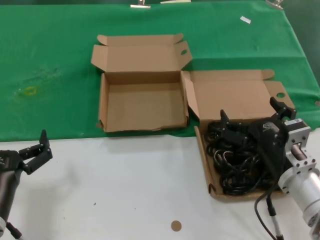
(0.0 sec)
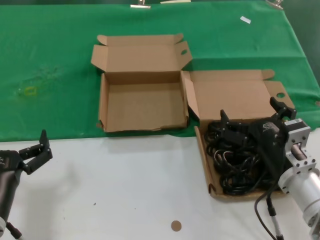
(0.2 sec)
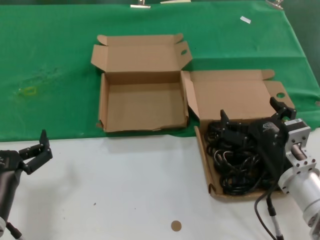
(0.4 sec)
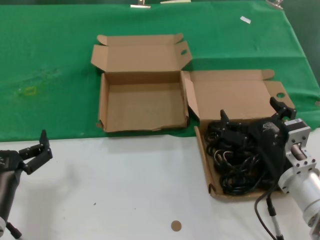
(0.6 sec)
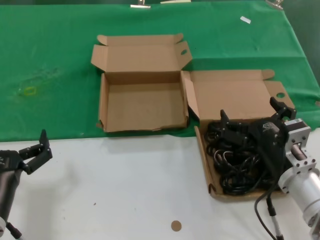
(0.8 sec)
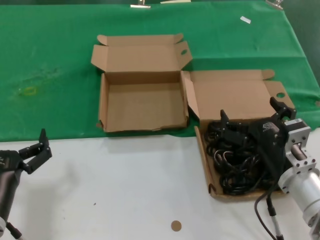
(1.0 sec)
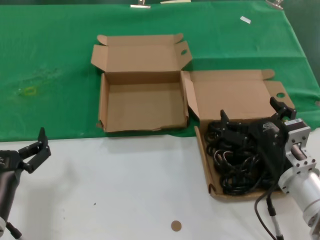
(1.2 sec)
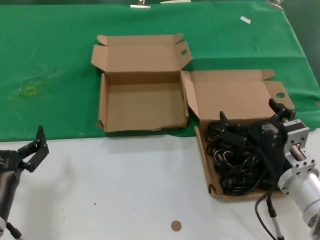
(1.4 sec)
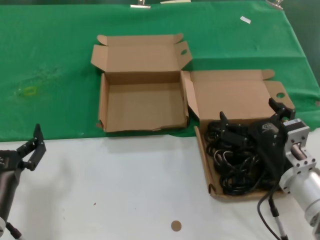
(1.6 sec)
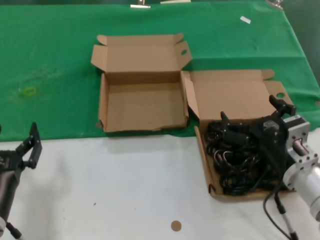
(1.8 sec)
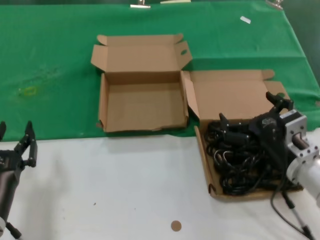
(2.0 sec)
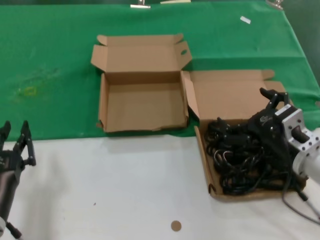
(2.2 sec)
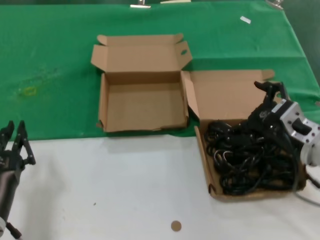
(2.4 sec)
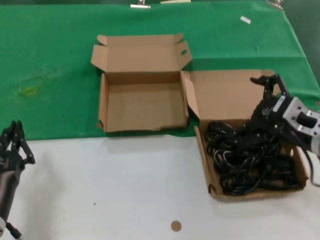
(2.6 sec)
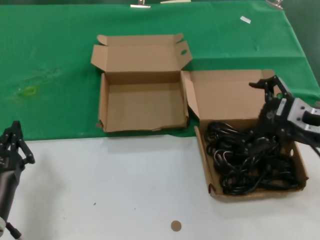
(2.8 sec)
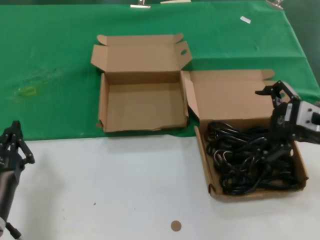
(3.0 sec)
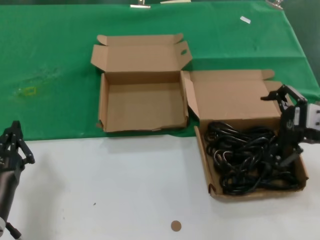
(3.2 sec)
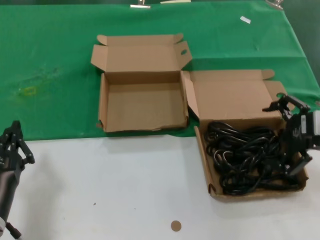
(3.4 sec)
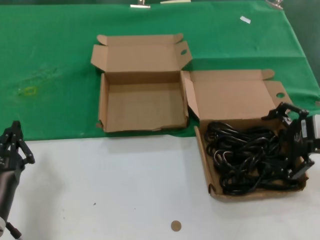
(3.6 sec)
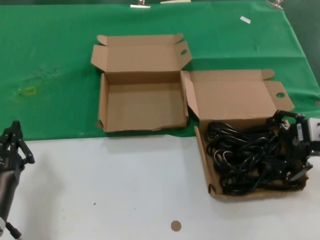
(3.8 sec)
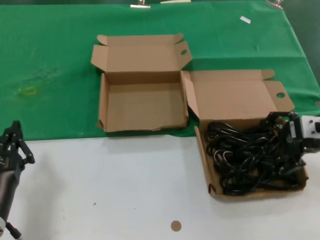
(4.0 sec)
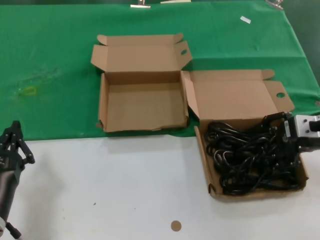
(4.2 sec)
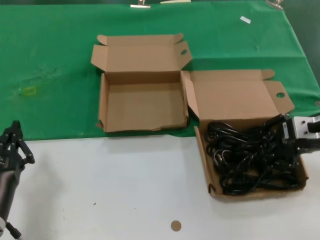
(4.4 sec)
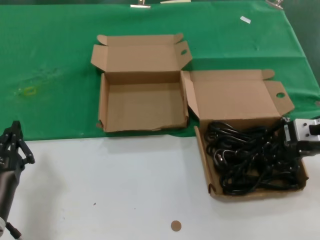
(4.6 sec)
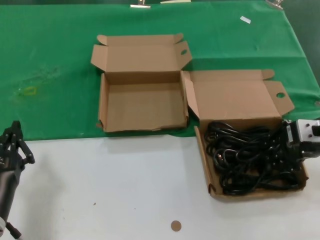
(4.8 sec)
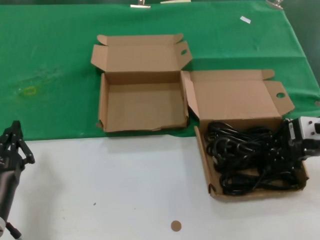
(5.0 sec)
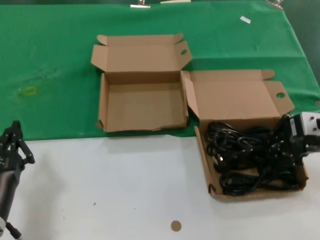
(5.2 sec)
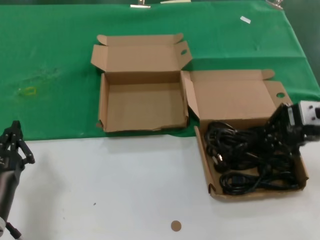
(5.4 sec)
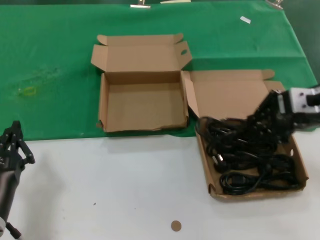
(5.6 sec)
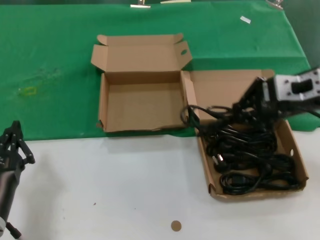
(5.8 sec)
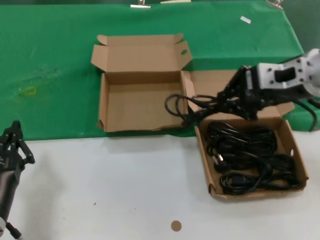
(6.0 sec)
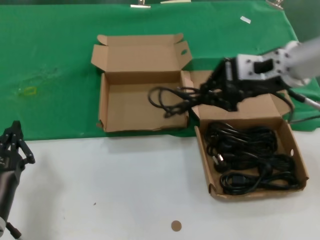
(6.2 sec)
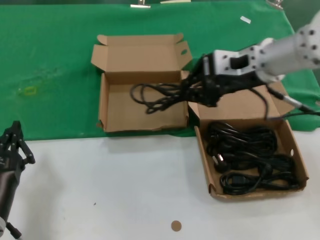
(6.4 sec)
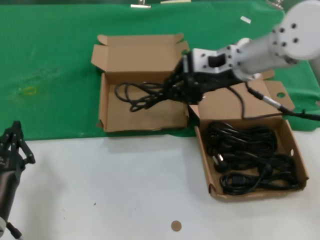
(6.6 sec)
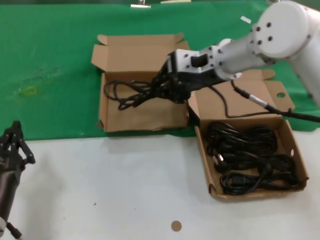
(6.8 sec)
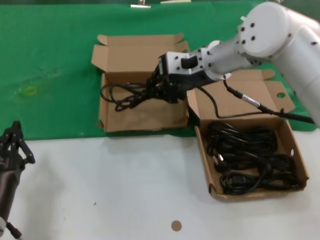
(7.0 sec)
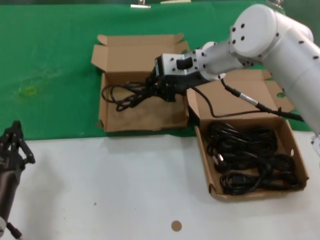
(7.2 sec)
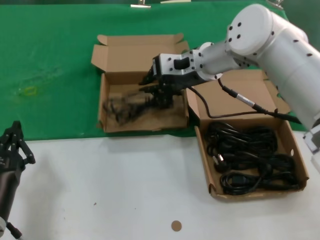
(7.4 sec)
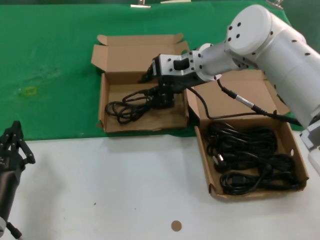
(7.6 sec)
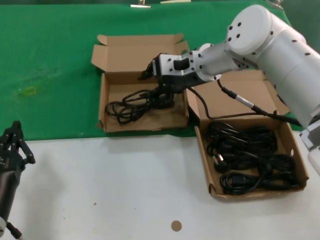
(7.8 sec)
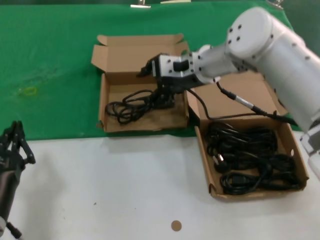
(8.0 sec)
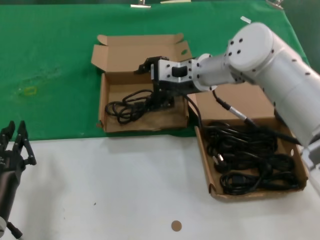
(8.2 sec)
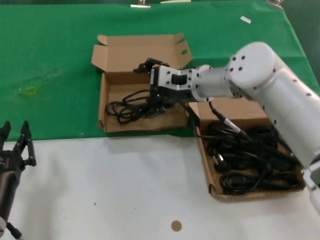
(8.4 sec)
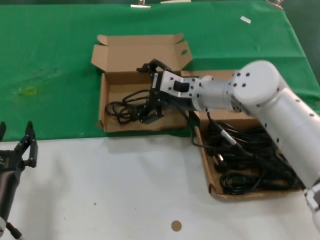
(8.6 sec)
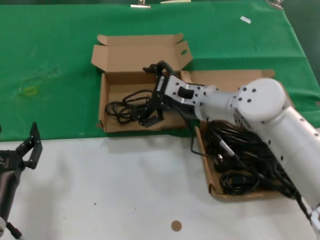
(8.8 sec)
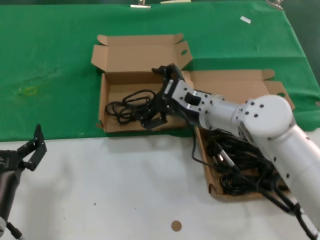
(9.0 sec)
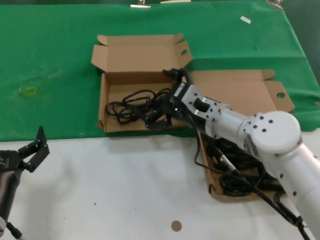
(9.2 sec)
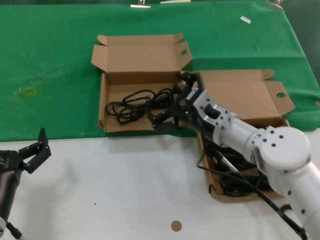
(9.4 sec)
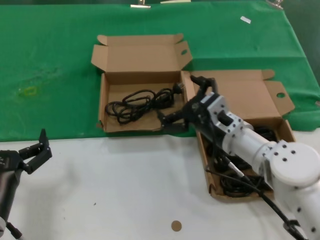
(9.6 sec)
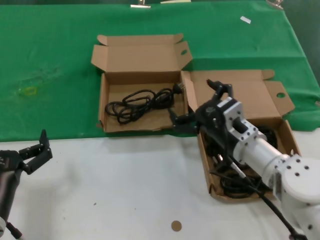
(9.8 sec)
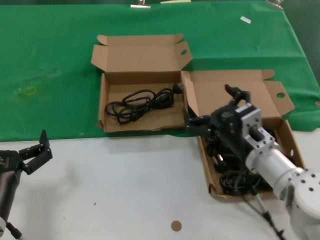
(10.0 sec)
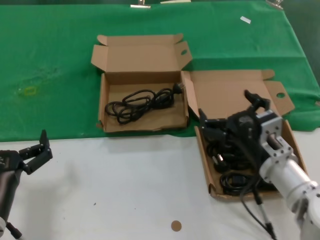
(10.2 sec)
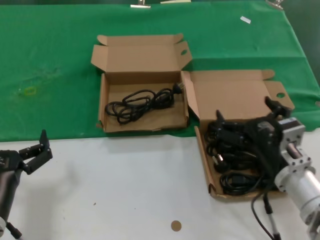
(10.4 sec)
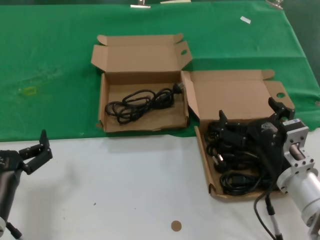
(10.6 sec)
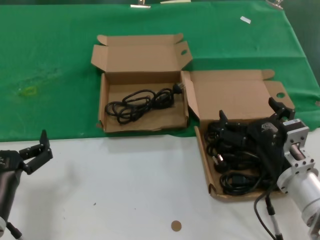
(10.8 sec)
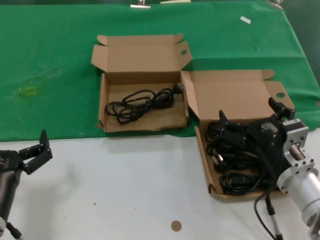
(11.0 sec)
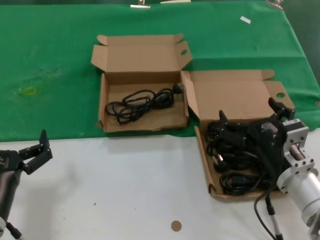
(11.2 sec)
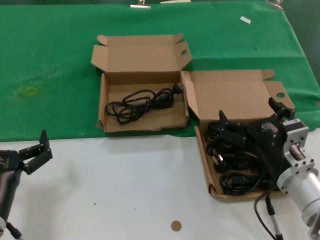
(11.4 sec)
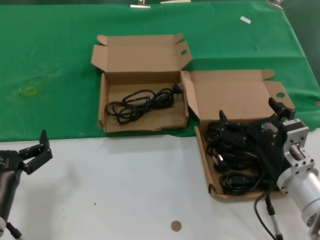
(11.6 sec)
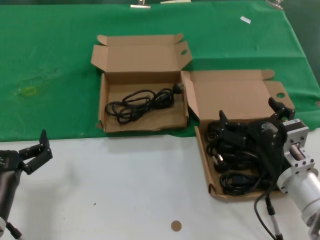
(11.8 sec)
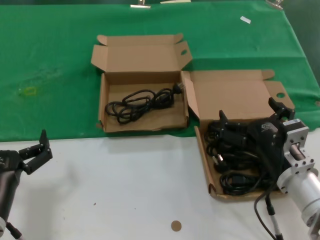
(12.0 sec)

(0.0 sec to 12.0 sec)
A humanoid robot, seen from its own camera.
Task of the whole recording: take the parts from the box containing them and put them into an empty box.
Step, 0.0 sec - 4.8 sec: Grasp the data cable.
Step, 5.0 sec - 7.4 sec: Place the data cable in the another box.
0.0 sec - 1.6 sec: Both hands stay about where they are.
1.6 sec - 3.0 sec: The right hand goes some 15 cm upward and to the right.
3.0 sec - 4.4 sec: The right hand moves about 5 cm.
4.4 sec - 6.0 sec: The right hand is displaced upward and to the left by some 15 cm.
6.0 sec - 7.6 sec: The right hand is displaced forward and to the left by some 20 cm.
7.6 sec - 9.0 sec: The right hand moves downward and backward, approximately 15 cm.
9.0 sec - 10.4 sec: The right hand goes roughly 20 cm backward, to the right and downward.
10.4 sec - 12.0 sec: Both hands stay put.

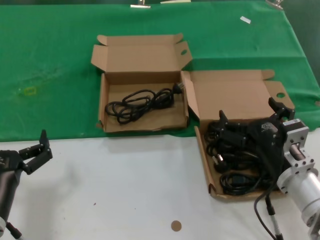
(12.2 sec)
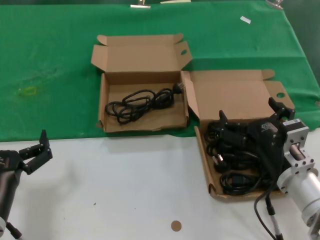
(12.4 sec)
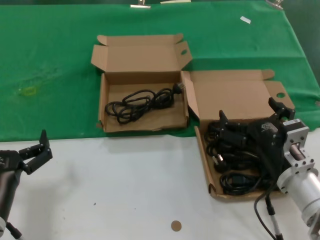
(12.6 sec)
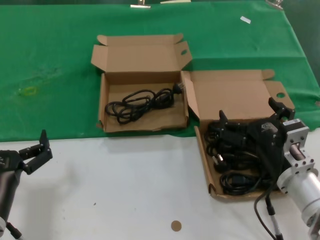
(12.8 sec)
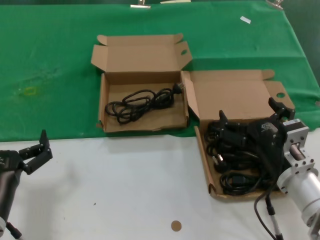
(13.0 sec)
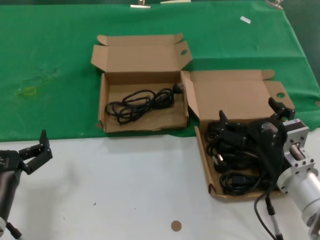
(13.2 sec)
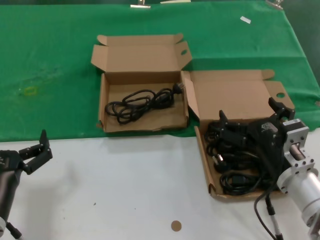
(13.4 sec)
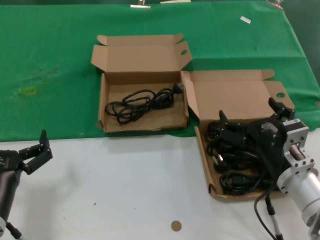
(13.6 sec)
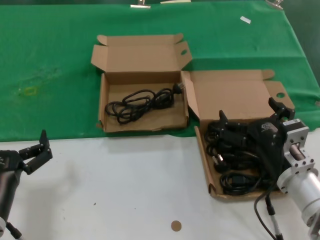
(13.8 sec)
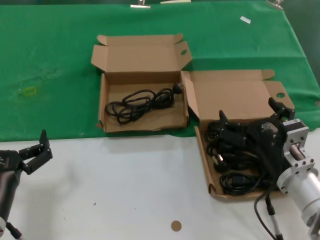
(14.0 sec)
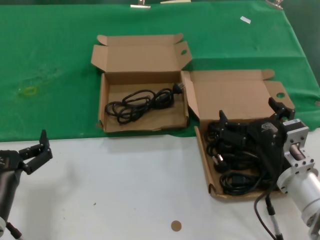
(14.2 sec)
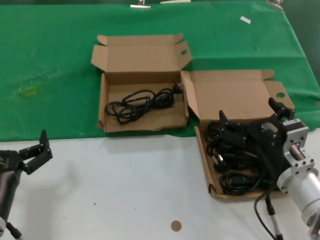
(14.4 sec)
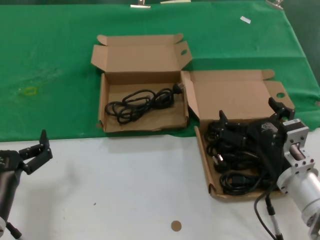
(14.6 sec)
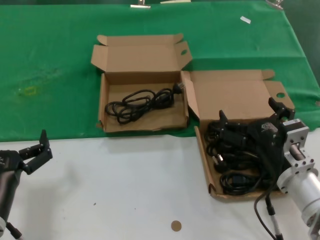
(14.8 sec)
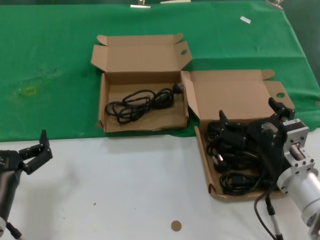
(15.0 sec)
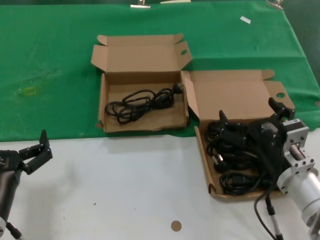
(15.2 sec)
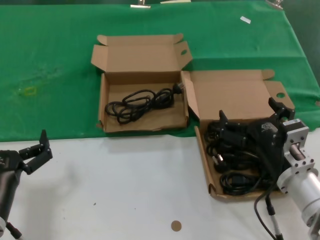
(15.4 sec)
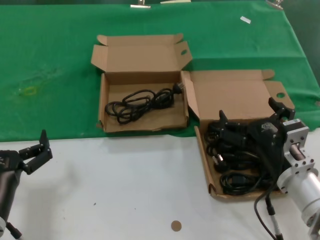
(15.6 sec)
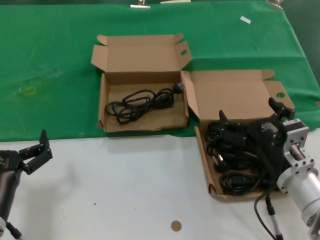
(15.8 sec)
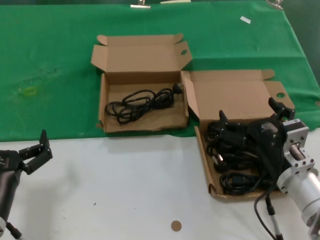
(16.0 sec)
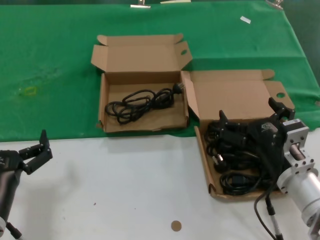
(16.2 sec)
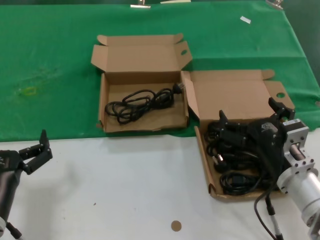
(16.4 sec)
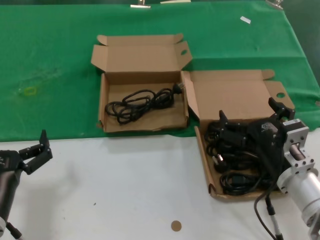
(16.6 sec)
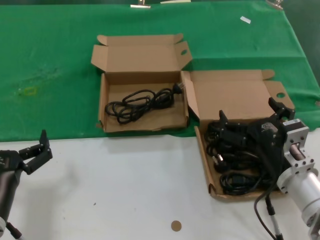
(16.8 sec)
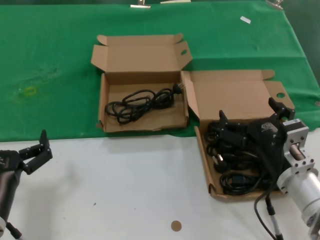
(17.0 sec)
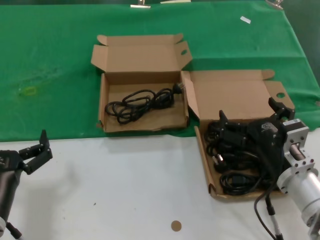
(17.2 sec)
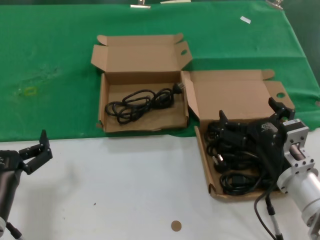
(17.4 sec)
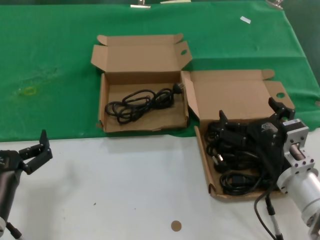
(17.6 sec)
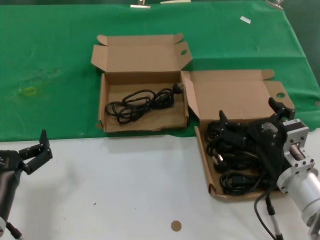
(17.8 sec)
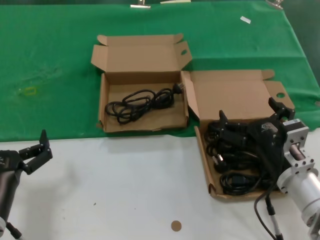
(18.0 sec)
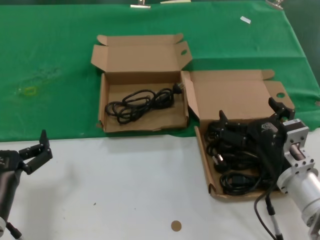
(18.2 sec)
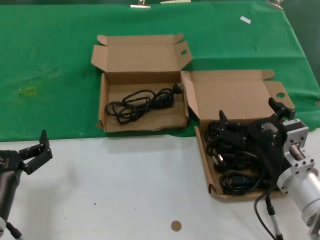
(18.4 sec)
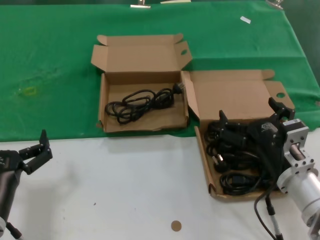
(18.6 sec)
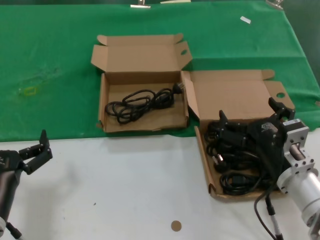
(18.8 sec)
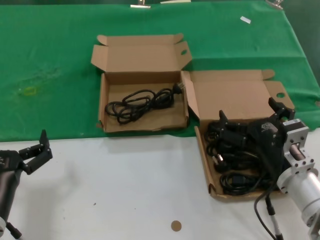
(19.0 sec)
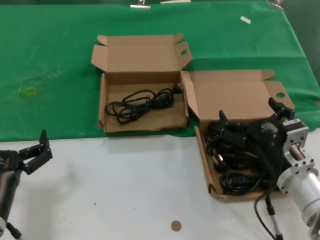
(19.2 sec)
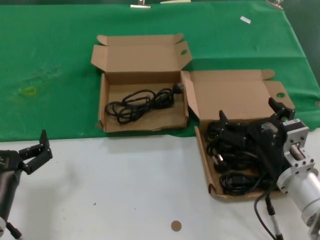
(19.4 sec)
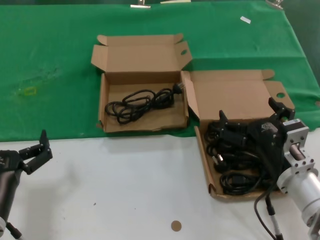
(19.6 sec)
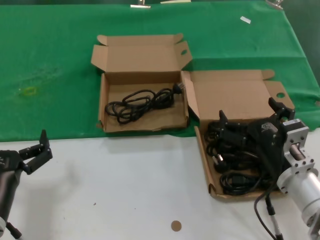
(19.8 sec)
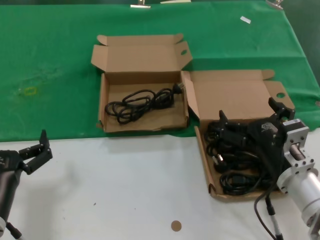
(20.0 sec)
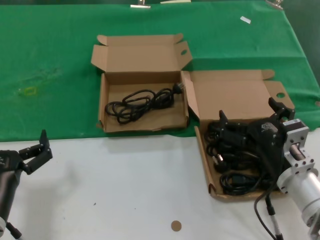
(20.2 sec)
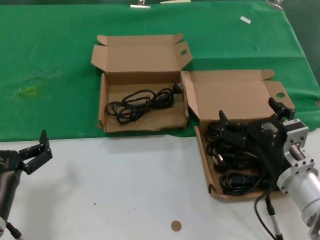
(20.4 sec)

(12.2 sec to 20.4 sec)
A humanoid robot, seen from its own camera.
Task of the whole recording: take the parts from the box containing them and put them into an empty box.
12.2 sec - 20.4 sec: Both hands stay about where they are.
